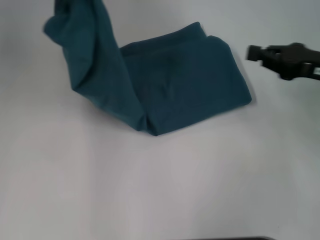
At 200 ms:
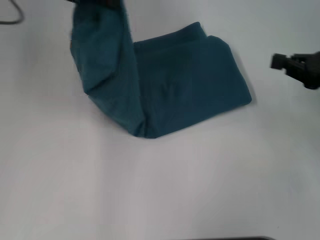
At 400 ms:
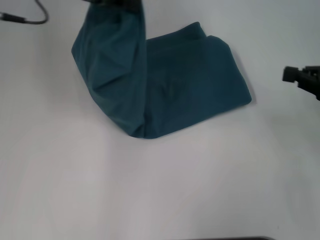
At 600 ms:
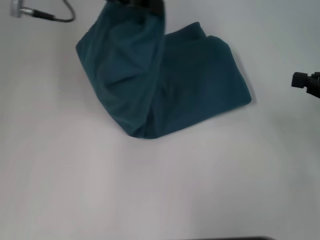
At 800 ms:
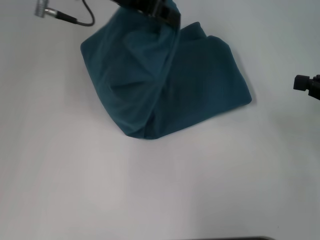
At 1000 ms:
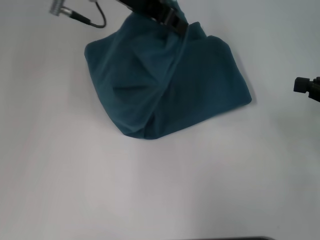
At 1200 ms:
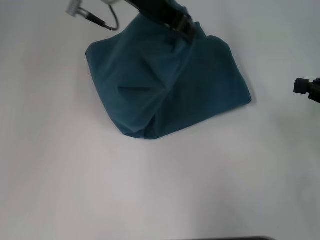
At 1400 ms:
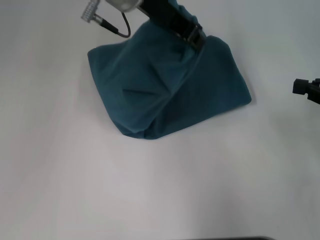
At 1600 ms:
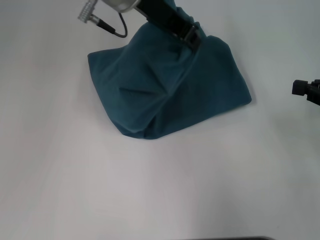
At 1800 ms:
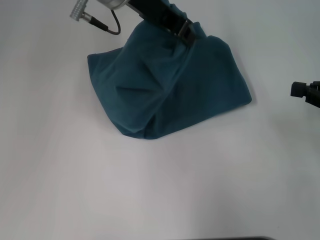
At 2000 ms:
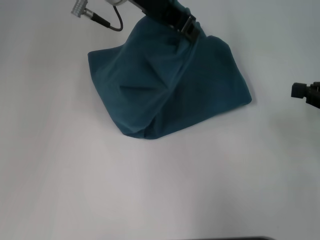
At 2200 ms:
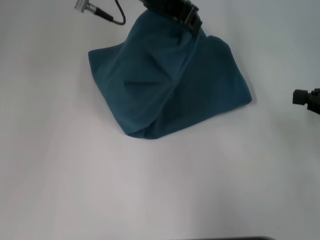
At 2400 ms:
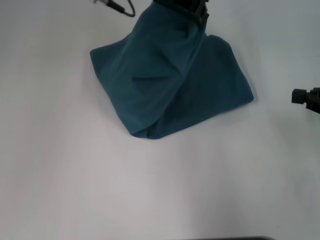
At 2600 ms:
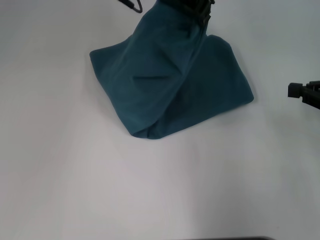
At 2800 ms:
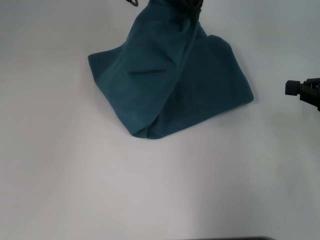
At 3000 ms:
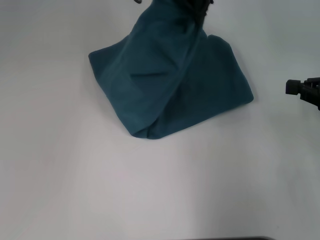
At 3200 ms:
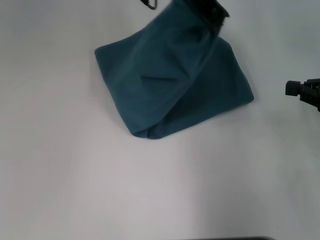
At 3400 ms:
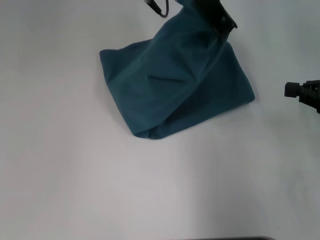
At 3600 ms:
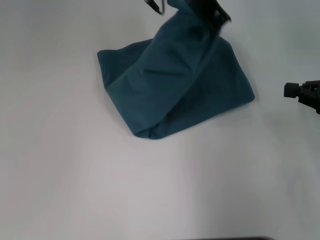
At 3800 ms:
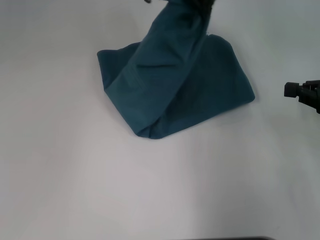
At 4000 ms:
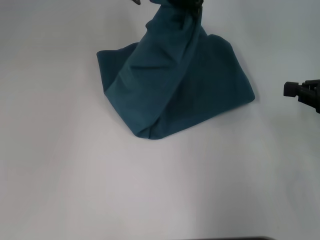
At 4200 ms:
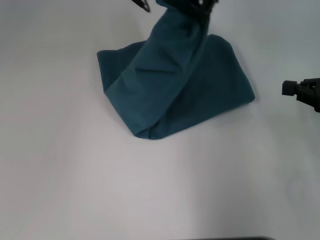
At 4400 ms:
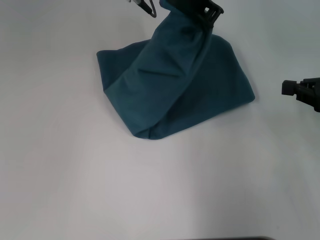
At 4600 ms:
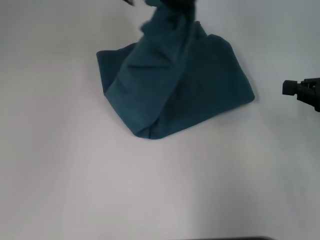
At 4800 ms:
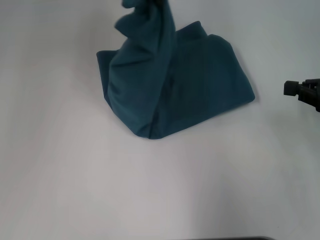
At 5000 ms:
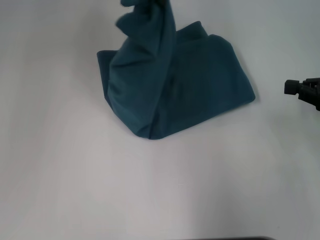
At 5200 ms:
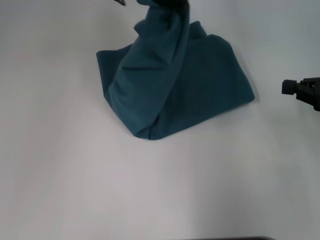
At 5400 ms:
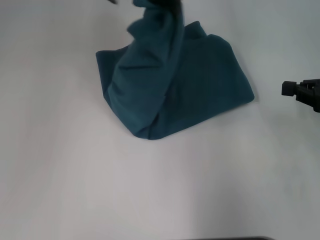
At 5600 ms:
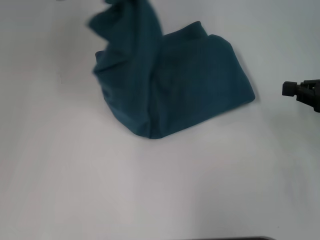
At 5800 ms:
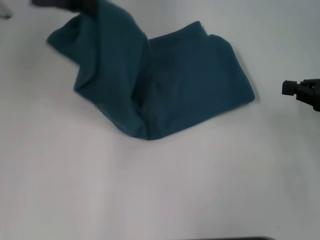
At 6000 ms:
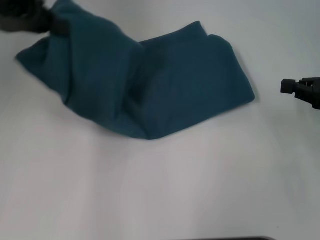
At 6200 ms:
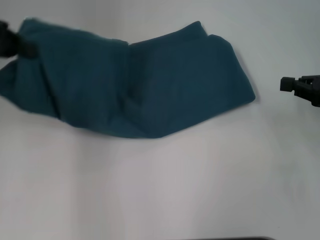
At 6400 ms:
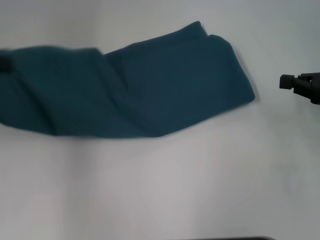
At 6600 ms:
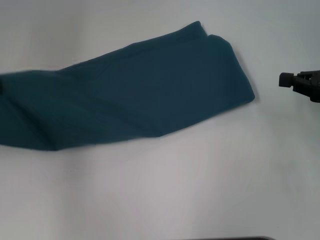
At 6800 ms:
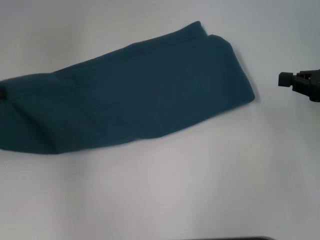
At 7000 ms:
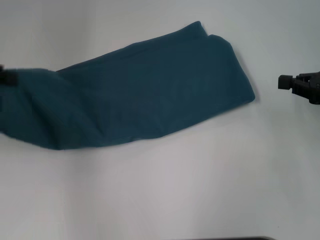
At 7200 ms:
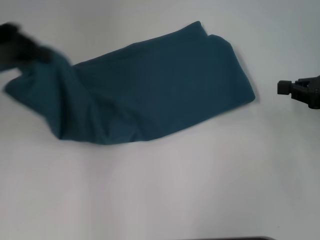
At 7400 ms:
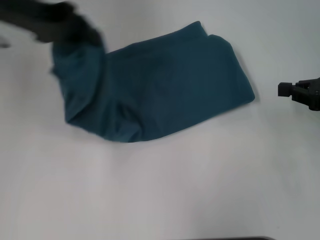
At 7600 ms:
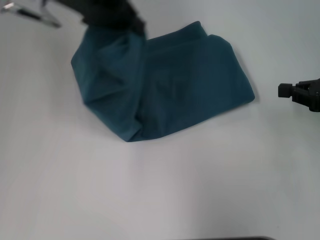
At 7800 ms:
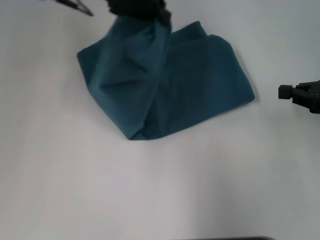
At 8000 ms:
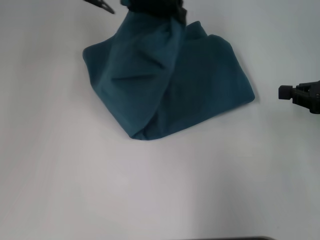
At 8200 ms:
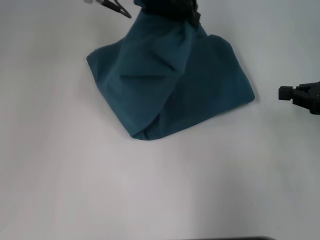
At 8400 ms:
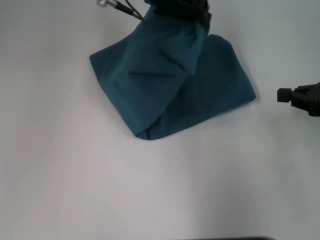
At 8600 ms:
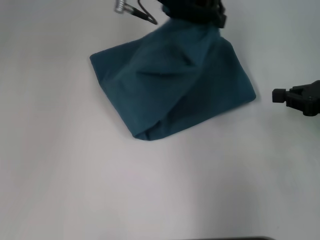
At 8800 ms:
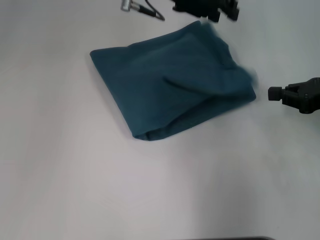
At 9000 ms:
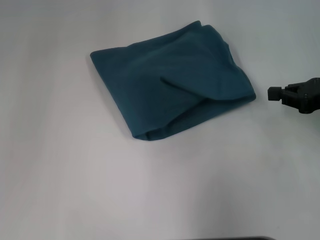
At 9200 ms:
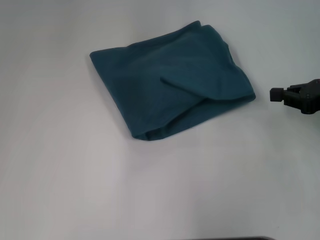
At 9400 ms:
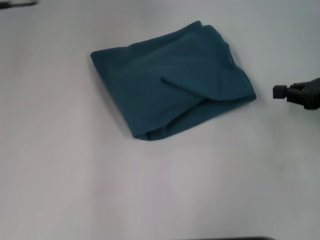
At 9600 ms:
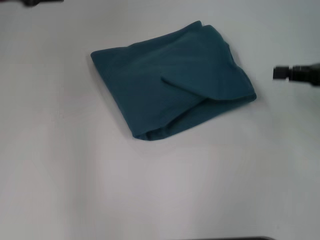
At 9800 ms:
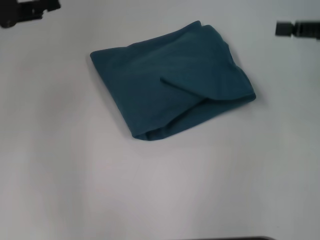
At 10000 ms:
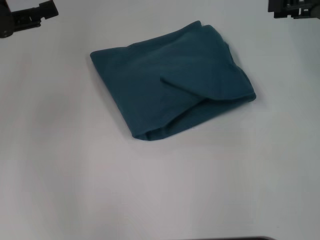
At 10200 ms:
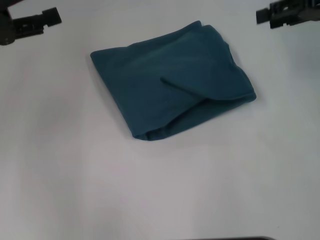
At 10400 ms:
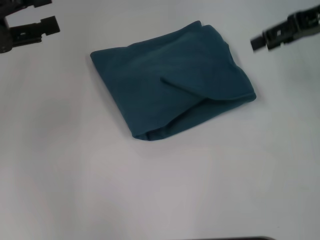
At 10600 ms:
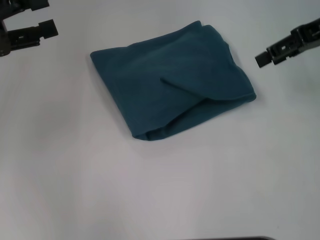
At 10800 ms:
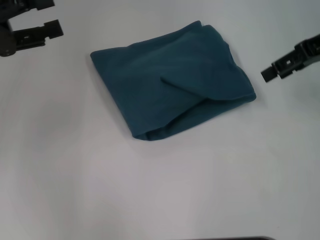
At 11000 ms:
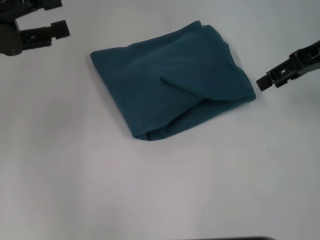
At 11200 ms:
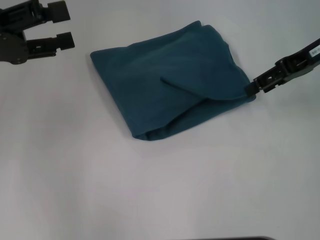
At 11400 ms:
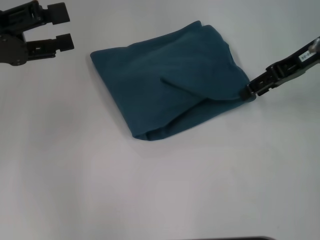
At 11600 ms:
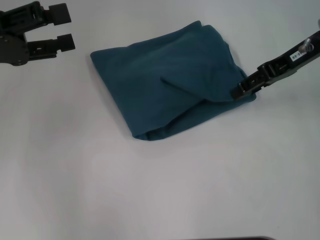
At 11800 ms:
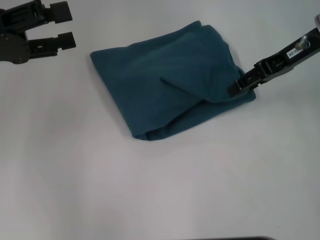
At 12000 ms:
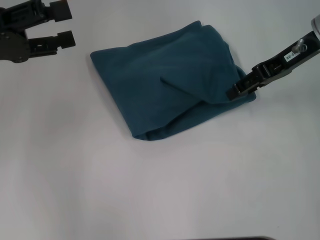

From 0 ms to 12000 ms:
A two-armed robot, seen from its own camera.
Step, from 0 ms to 8800 ms: Fold the clothes to the left.
From 0 ms to 1600 ms: The left gripper moves to the right, about 20 cm, while the right gripper shifts roughly 5 cm to the right.
From 1600 ms to 3000 ms: The left gripper shifts by roughly 5 cm.
From 3000 ms to 4400 ms: The grippers stay close to where they were, moving slightly.
From 4400 ms to 6000 ms: The left gripper swings left and right, some 25 cm each way, with 2 reversals.
From 6000 ms to 7600 ms: The left gripper is displaced to the right by some 10 cm.
From 7600 ms to 9000 ms: The left gripper goes roughly 10 cm to the right.
From 9000 ms to 10400 ms: The left gripper goes about 25 cm to the left and backward, and opens; the right gripper is displaced upward and forward by about 15 cm, and opens up.
From 10400 ms to 12000 ms: The right gripper ends up approximately 5 cm from where it was.

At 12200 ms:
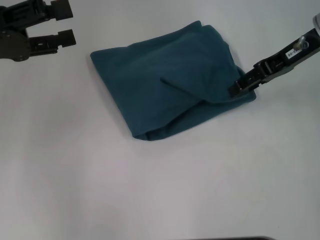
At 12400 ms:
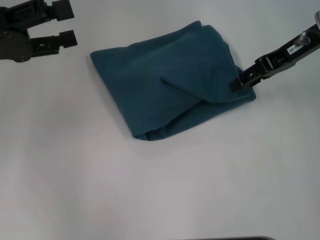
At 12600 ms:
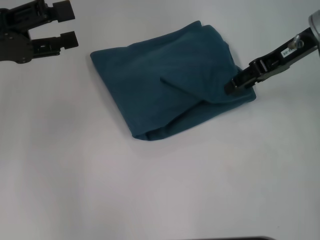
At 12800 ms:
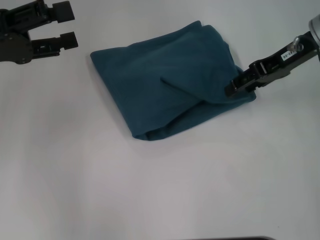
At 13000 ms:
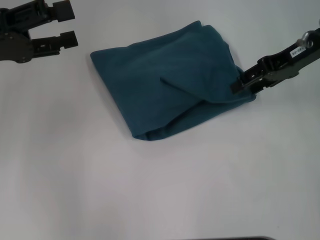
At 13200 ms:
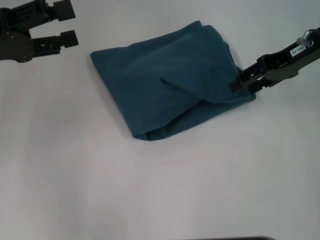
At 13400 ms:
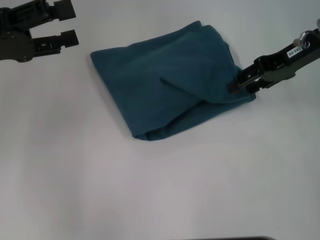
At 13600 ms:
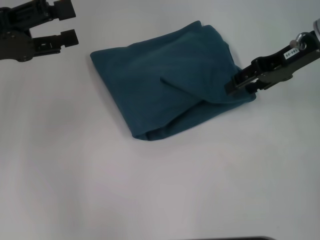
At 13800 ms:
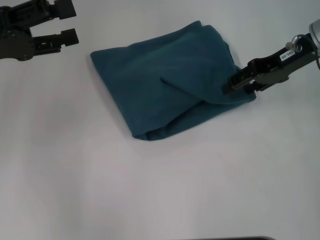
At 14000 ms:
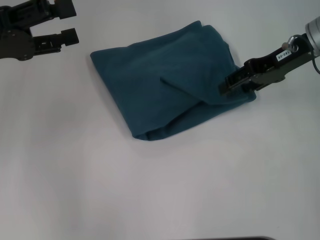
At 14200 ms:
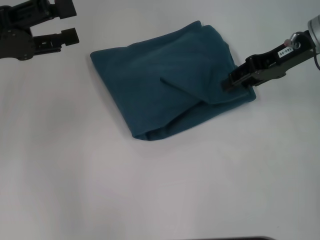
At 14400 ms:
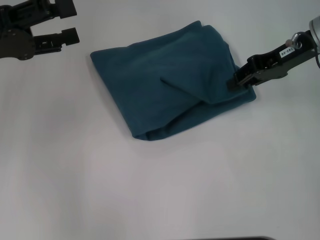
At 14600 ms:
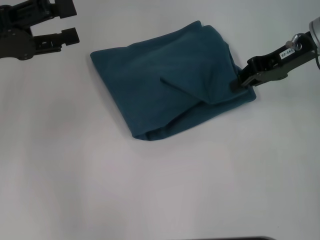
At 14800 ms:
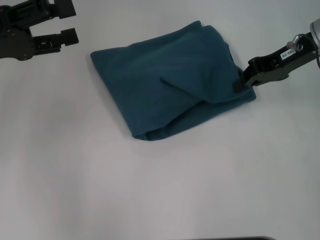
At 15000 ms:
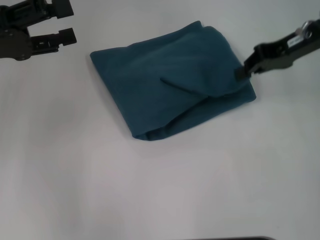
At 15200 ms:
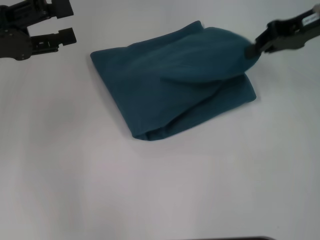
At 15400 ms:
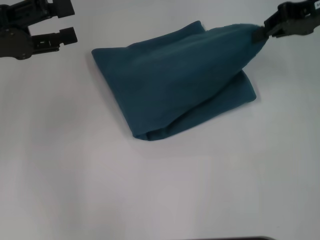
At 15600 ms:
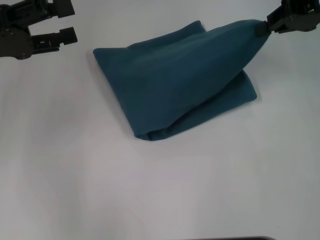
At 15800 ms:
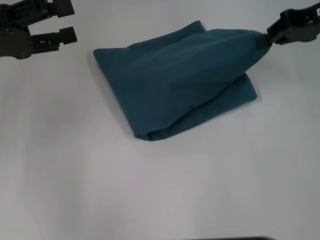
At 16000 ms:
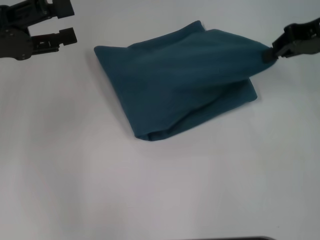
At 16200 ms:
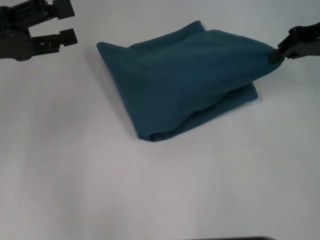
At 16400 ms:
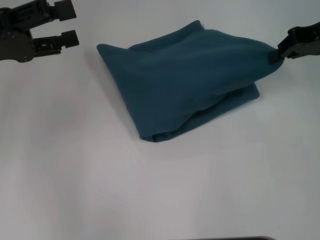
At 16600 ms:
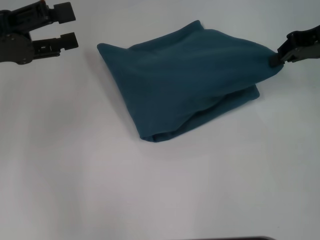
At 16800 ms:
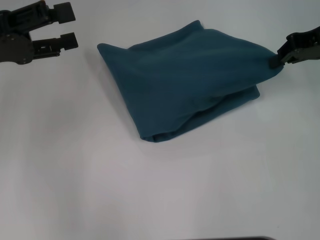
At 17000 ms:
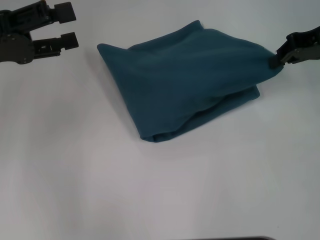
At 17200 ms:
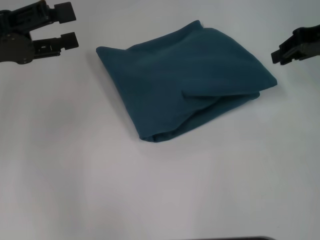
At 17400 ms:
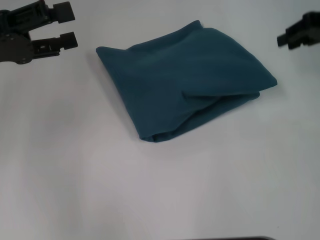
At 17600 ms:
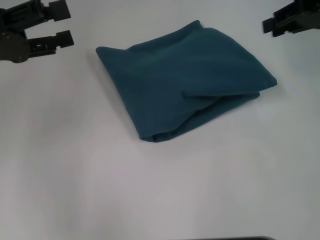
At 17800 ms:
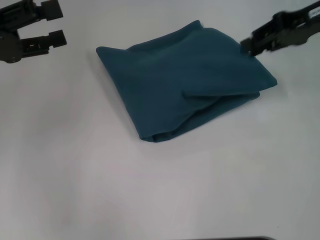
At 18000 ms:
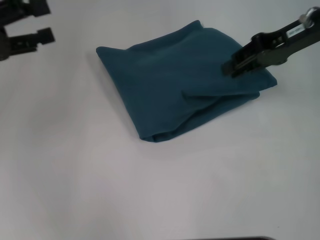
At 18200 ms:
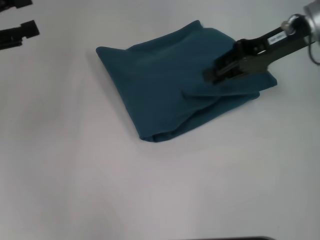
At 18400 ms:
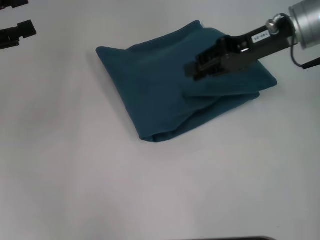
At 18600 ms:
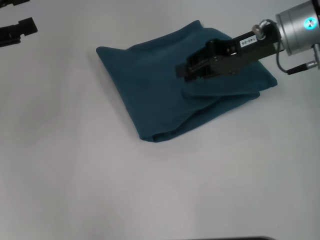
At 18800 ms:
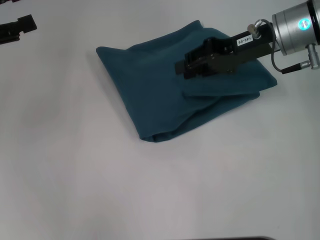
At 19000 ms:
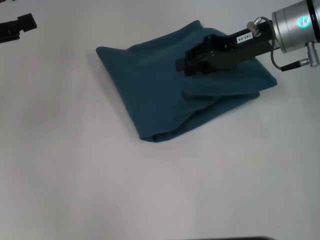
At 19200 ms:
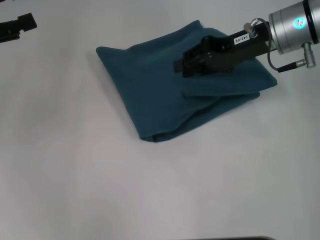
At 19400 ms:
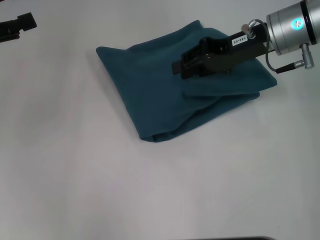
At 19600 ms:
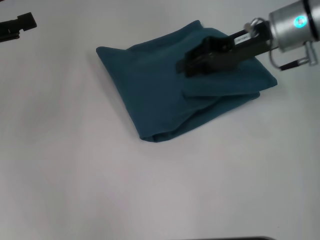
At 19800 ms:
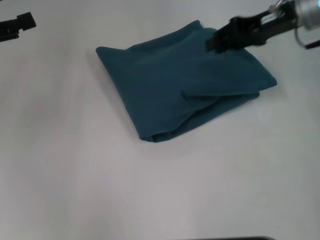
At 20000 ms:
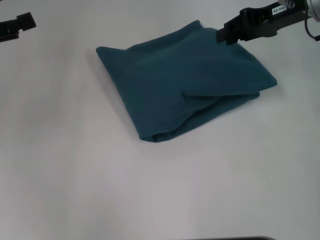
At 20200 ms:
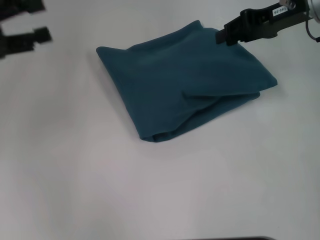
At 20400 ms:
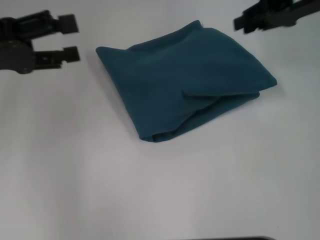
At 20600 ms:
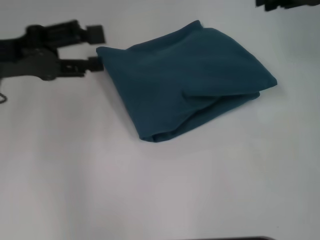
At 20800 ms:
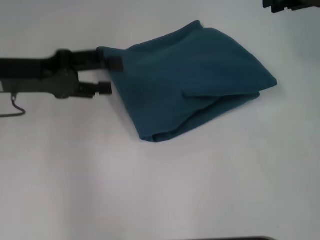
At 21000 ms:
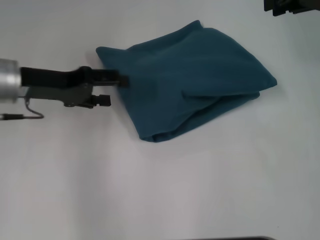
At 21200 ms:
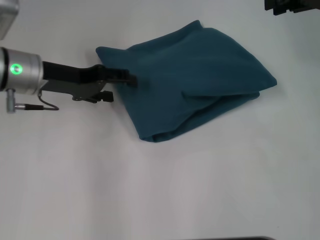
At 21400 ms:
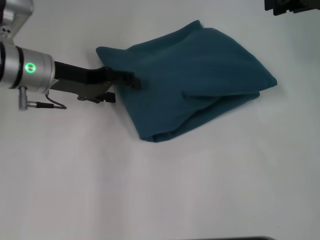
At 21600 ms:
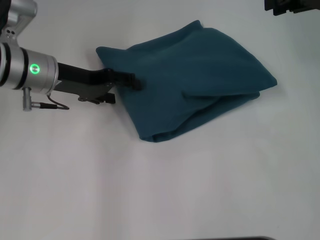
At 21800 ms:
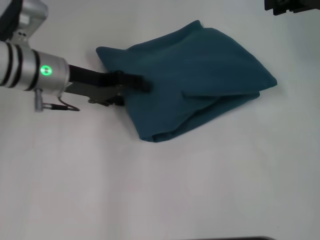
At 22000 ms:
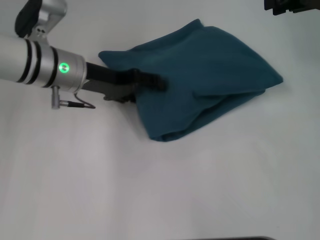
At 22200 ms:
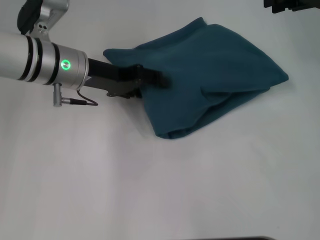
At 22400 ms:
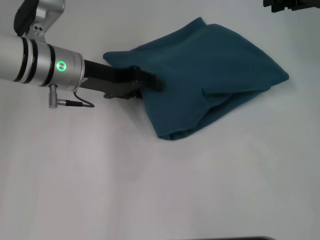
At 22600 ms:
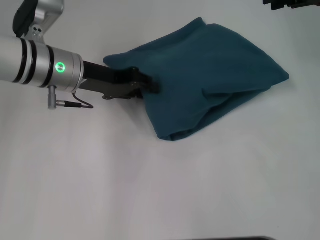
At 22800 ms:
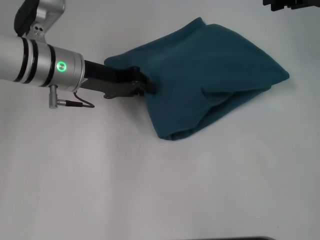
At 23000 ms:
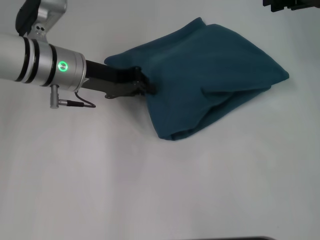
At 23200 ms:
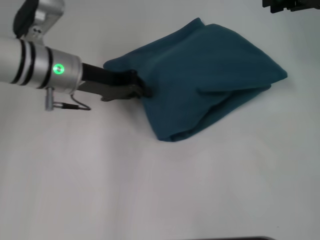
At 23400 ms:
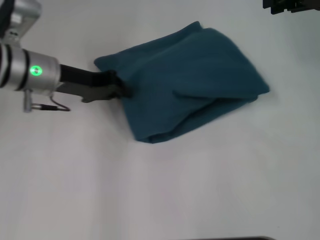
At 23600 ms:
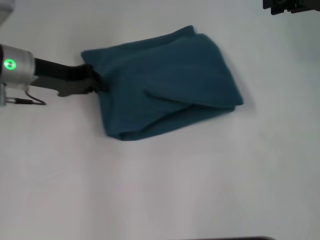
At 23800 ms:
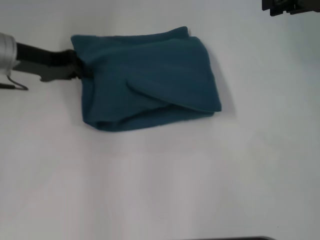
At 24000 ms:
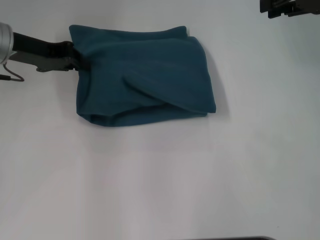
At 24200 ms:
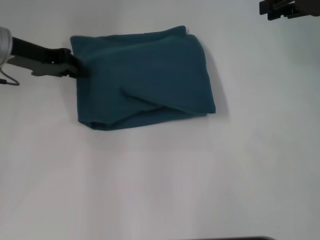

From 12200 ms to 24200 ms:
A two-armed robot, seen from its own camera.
From 12200 ms to 13800 ms: There are only small adjustments of the grippers.
From 13800 ms to 15200 ms: The right gripper closes up.
From 15200 ms to 16600 ms: The grippers move only a little.
From 16600 ms to 18200 ms: The right gripper shifts roughly 5 cm to the left.
From 18200 ms to 19800 ms: The grippers make only small movements.
From 19800 ms to 21200 ms: The left gripper heads to the right, downward and forward, covering roughly 15 cm; the right gripper shifts roughly 10 cm to the right and upward.
From 21200 ms to 22600 ms: The left gripper moves to the right, some 5 cm.
From 22600 ms to 24200 ms: The left gripper goes some 10 cm to the left, and closes.
